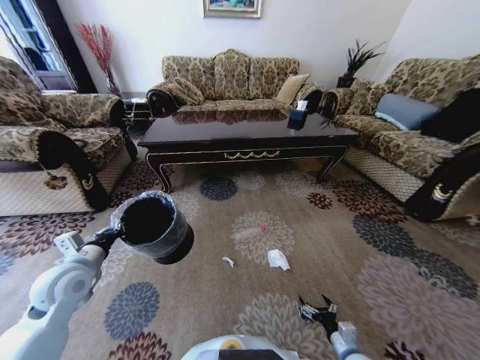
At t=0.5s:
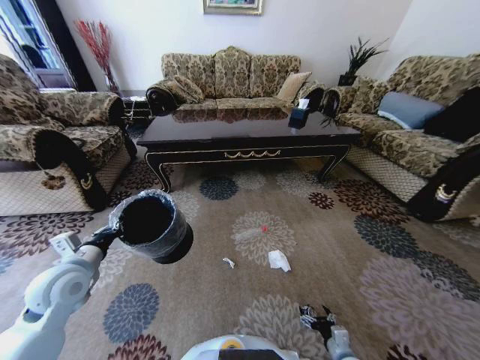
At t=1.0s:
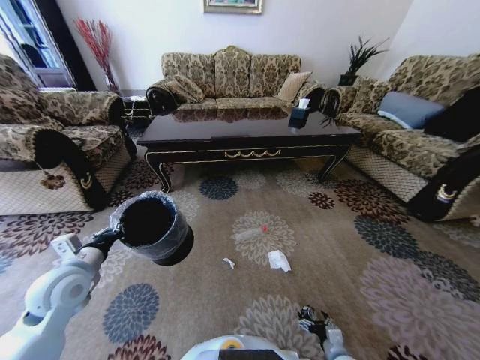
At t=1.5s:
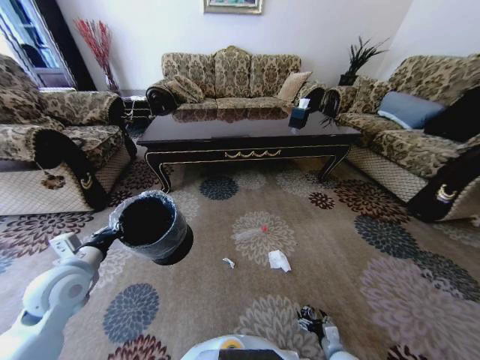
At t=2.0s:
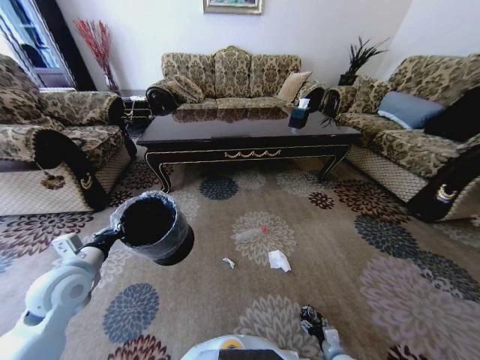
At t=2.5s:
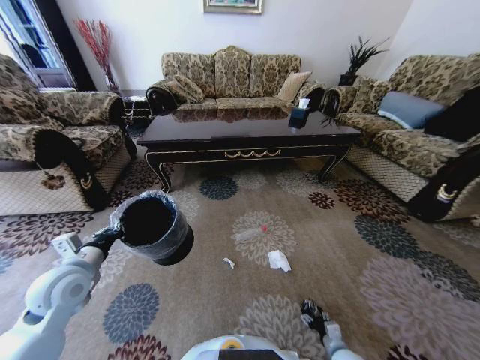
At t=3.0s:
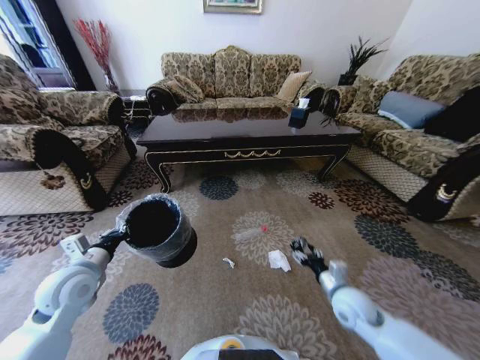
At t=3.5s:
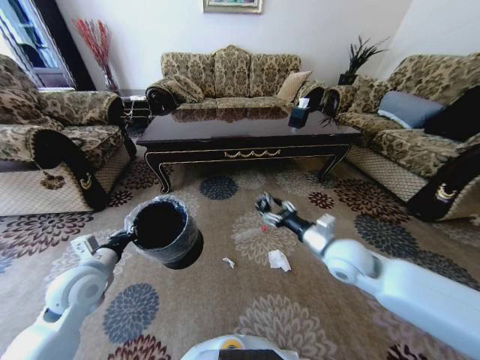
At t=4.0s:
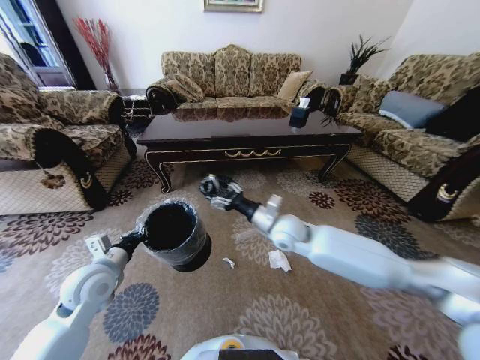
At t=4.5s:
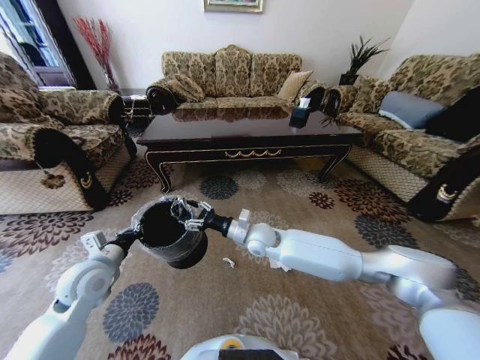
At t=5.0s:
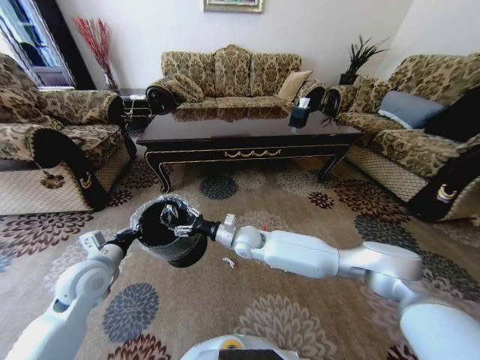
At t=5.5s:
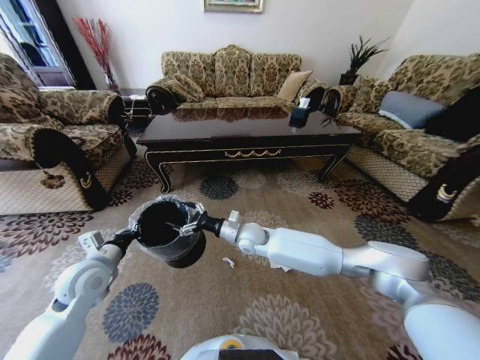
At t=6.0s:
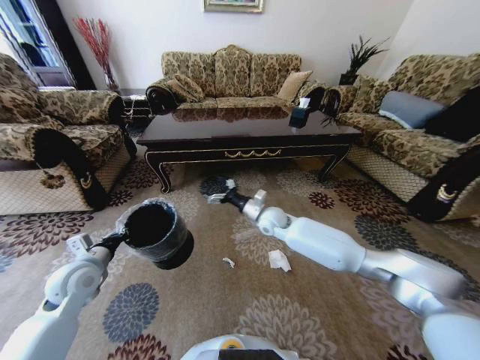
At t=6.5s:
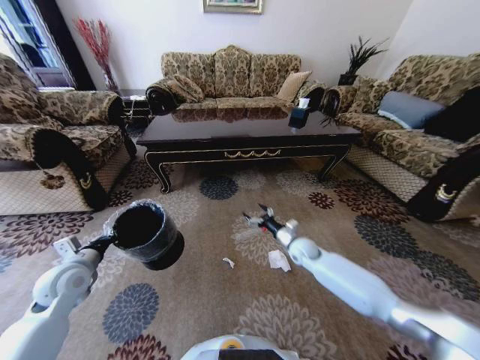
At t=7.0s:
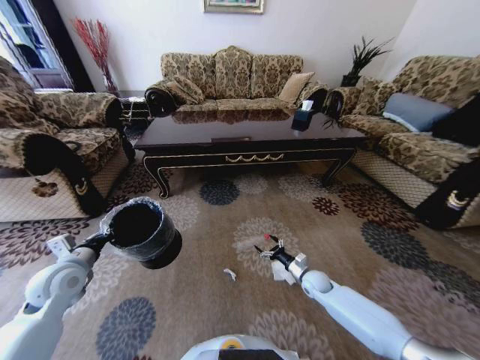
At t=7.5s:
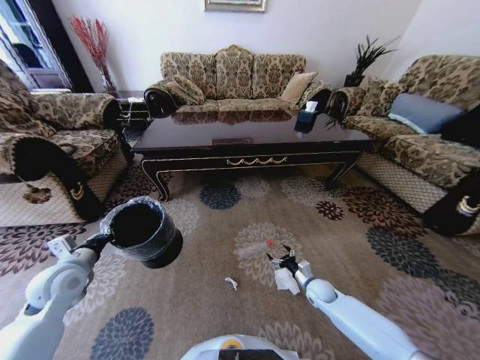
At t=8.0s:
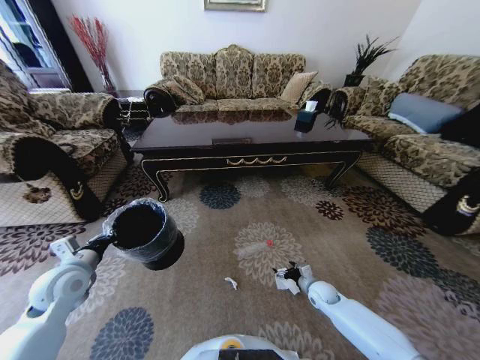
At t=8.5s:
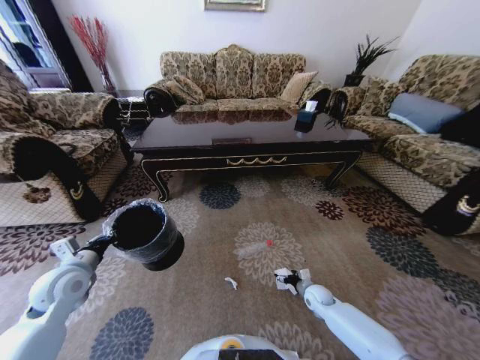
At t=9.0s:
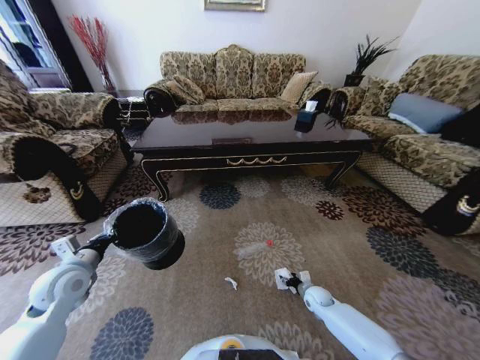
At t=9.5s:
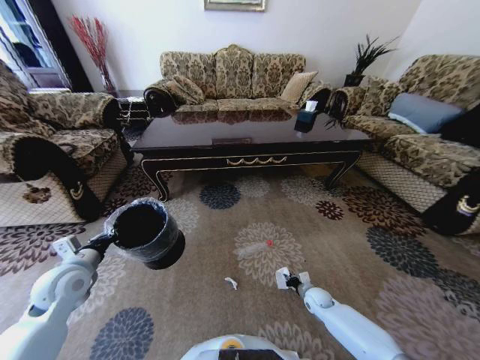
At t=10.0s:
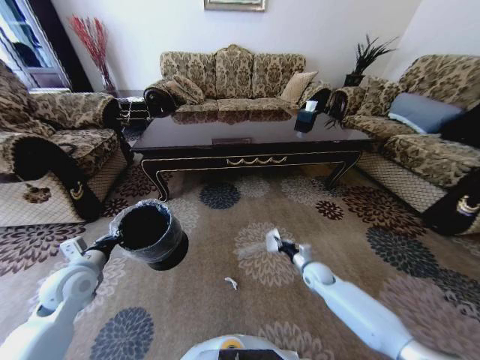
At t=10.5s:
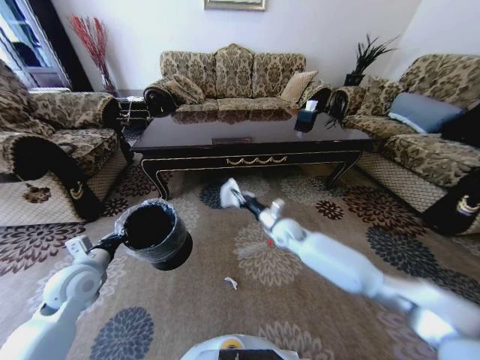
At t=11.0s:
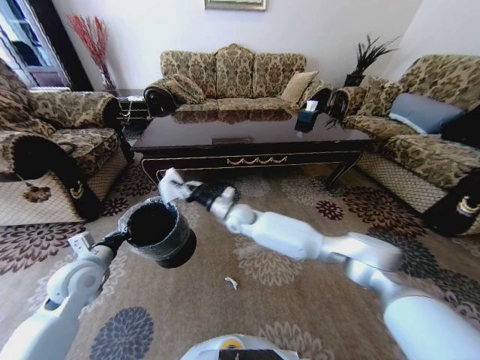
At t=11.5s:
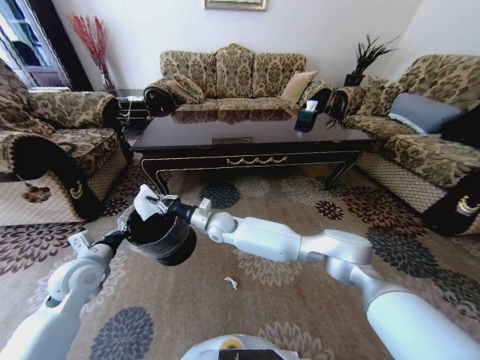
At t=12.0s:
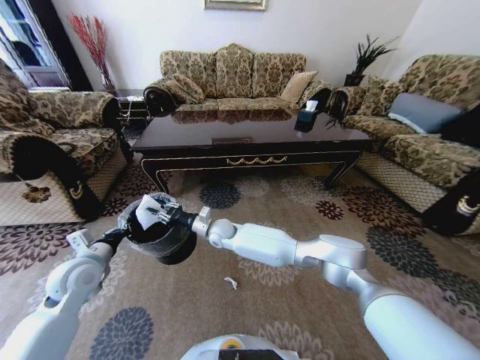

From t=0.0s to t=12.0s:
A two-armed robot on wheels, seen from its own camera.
Task of the whole recording: Move to the front of the table and pick up the trash from the floor, then place it into the trash bin.
From t=0.0s to t=2.0s: The right gripper travels downward by roughly 10 cm.
From t=2.0s to t=4.0s: The right gripper shifts roughly 50 cm upward, forward and to the left.
From t=4.0s to t=6.0s: The right gripper travels forward by roughly 10 cm, and moves some 10 cm to the left and comes back. The left gripper heads to the left, covering about 5 cm.
From t=6.0s to t=8.0s: The right gripper is displaced downward, to the right and backward by some 35 cm.
From t=8.0s to t=10.0s: The right gripper shifts some 10 cm upward and forward, and closes up.
From t=10.0s to t=12.0s: The right gripper heads to the left, covering roughly 35 cm.

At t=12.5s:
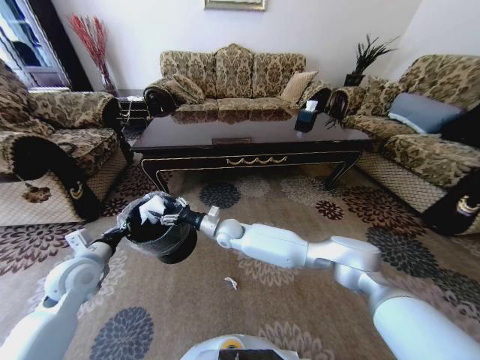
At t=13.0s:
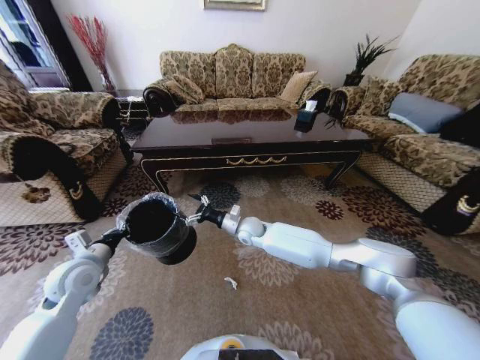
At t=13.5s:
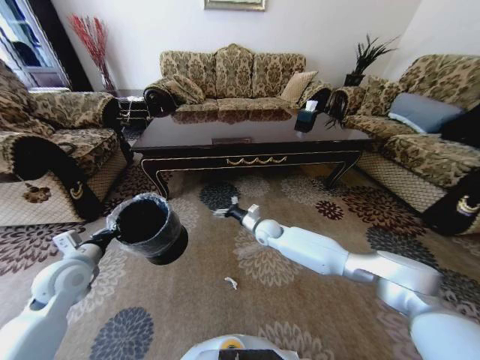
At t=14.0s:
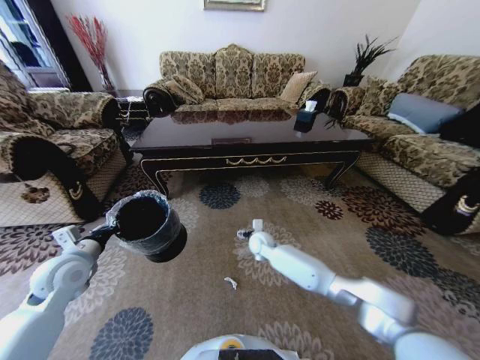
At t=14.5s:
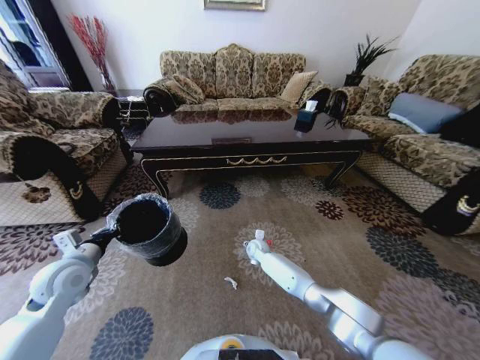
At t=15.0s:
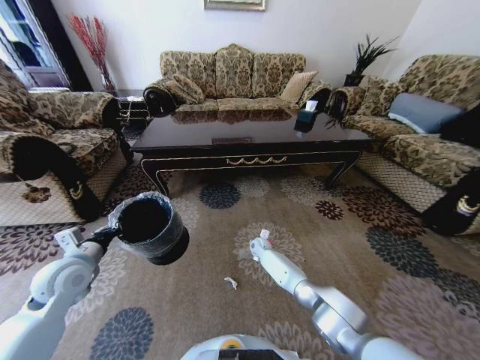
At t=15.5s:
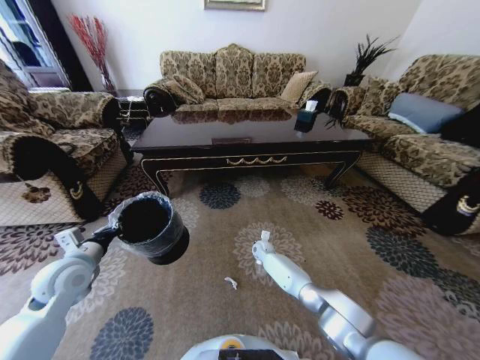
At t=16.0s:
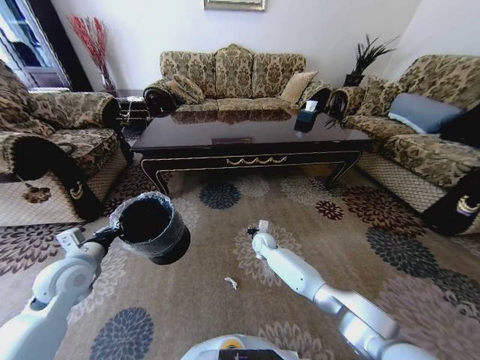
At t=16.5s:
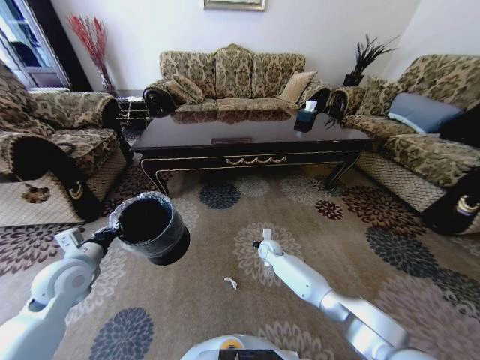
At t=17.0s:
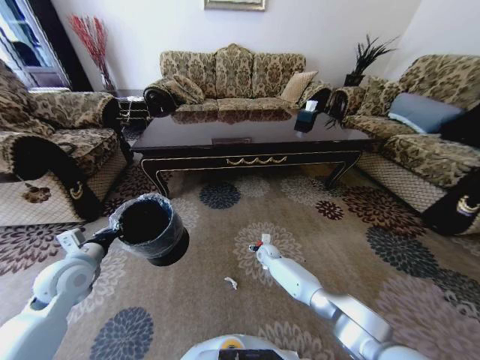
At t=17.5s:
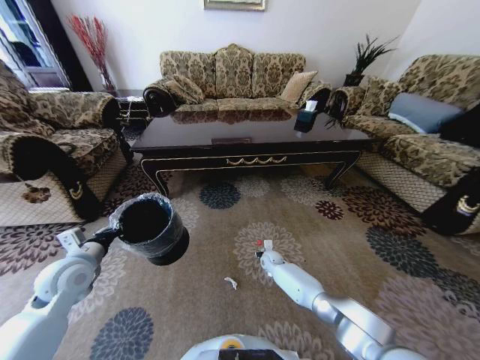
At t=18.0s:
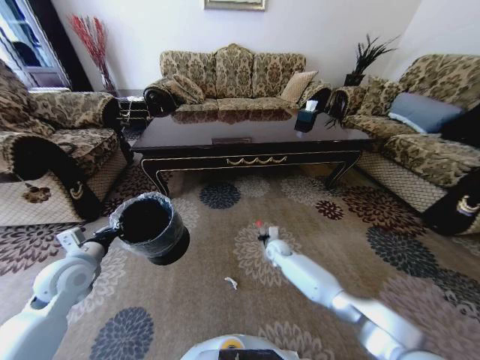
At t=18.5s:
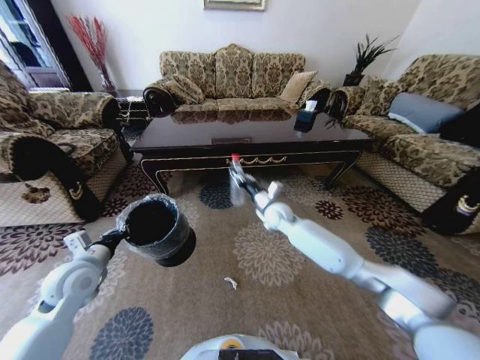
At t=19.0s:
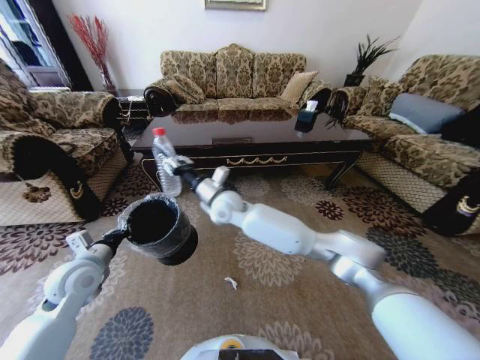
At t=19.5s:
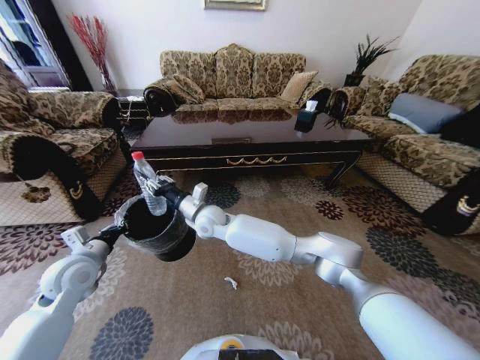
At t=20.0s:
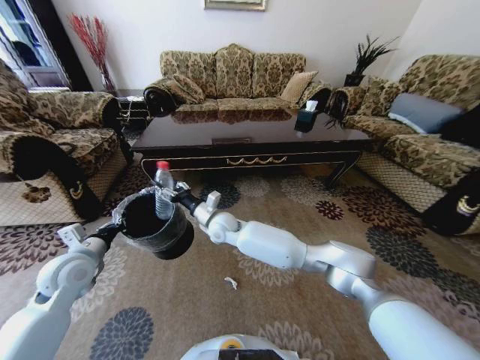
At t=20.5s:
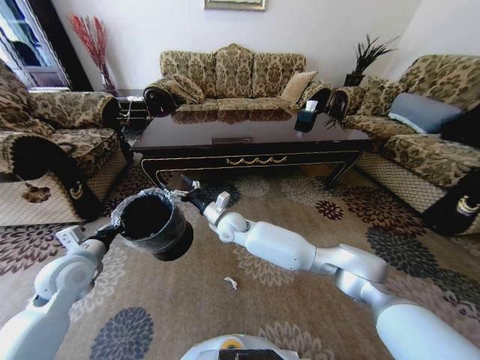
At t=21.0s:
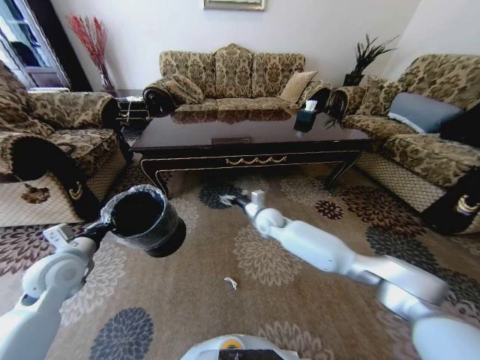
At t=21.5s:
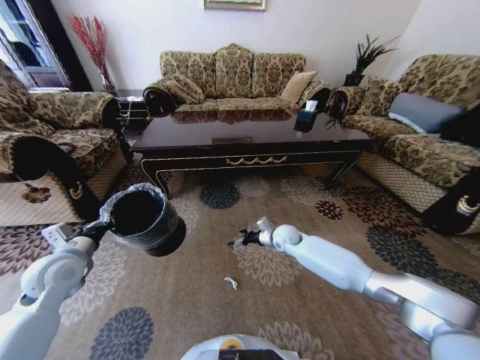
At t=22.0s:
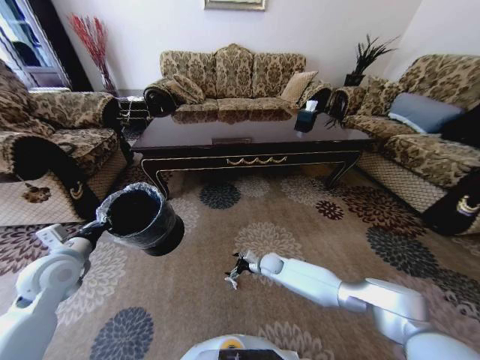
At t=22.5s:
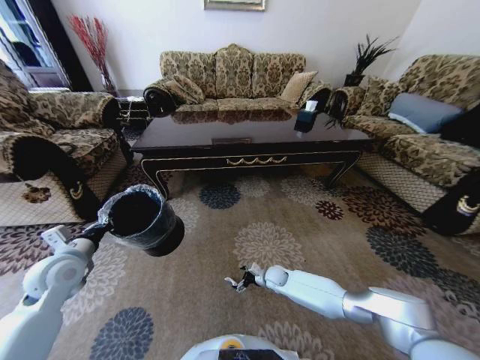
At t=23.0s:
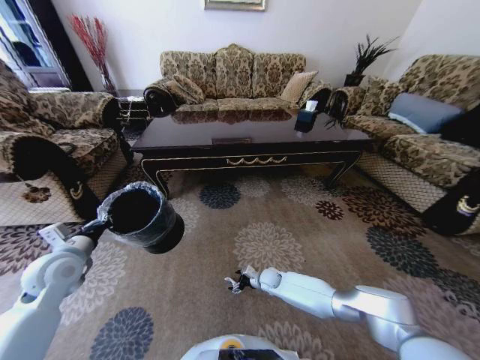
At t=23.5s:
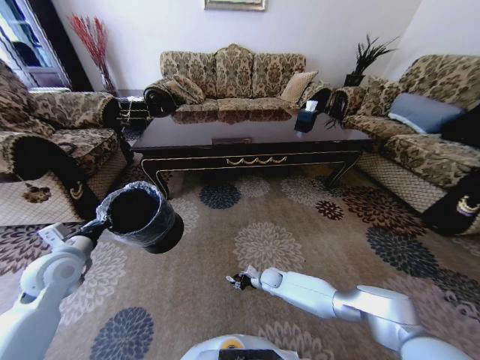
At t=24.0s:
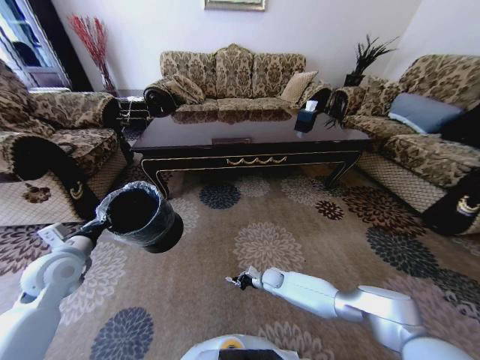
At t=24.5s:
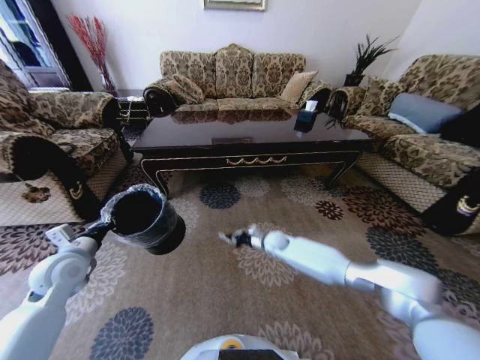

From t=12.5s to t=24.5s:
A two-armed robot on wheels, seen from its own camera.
Task of the whole recording: Move to the front of the table and pick up the trash from the floor, then place it into the trash bin.
From t=12.5s to t=14.5s: The right gripper travels downward and to the right by approximately 20 cm.
From t=14.5s to t=16.5s: The right gripper shifts some 5 cm to the right, and closes its fingers.
From t=16.5s to t=18.5s: The right gripper travels upward by roughly 20 cm, and opens, then closes again.
From t=18.5s to t=20.5s: The right gripper moves to the left, some 15 cm, and opens up.
From t=20.5s to t=22.5s: The right gripper is displaced downward and to the right by about 30 cm.
From t=22.5s to t=24.5s: The right gripper travels upward and forward by about 15 cm, and closes.

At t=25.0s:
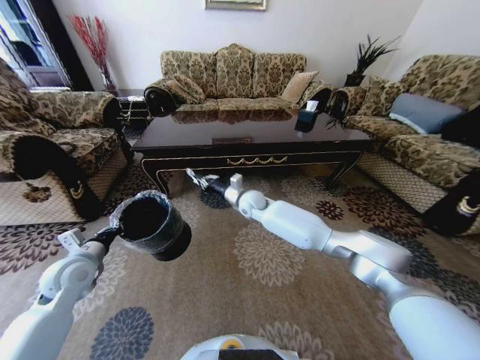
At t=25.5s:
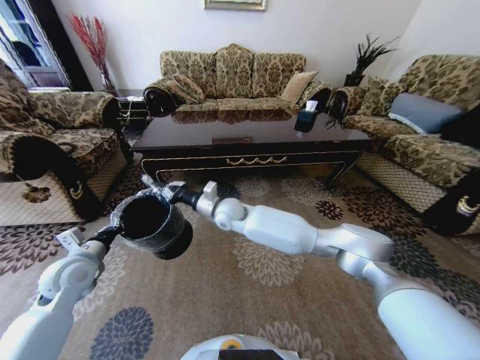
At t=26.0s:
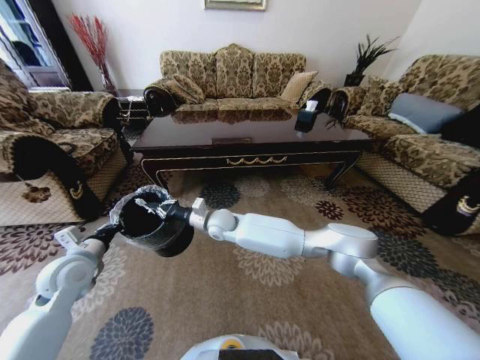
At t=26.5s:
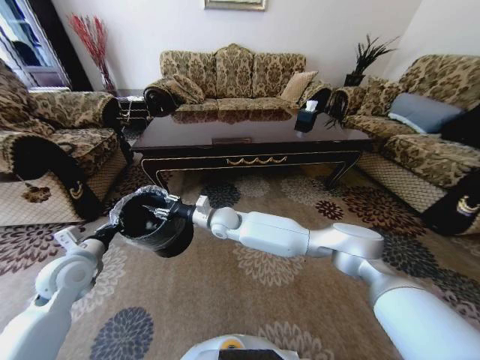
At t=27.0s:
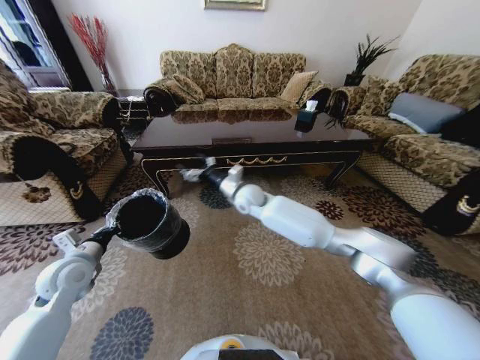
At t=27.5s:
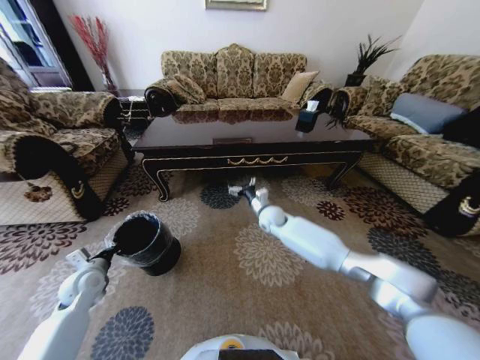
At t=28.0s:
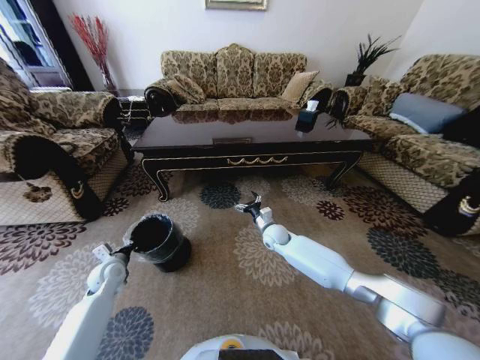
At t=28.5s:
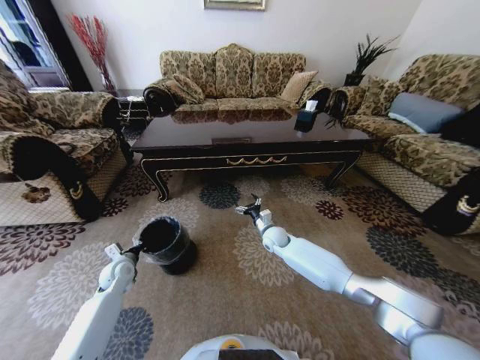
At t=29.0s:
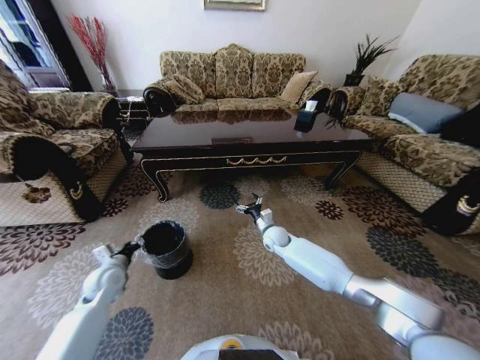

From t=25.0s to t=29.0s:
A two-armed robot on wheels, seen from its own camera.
Task of the whole recording: Move to the front of the table and pick up the trash from the floor, then place it into the trash bin.
From t=25.0s to t=27.0s: The right gripper reaches about 10 cm to the left, then returns, and opens up.
From t=27.0s to t=29.0s: The left gripper moves downward, about 10 cm, and opens up. The right gripper travels downward and to the right by about 20 cm.
